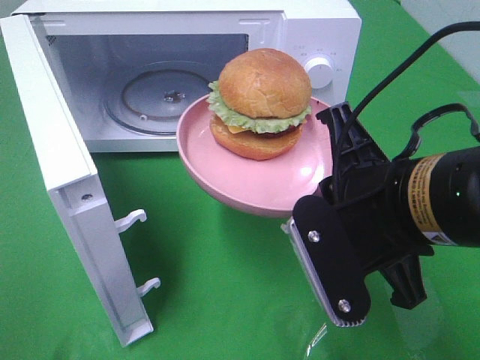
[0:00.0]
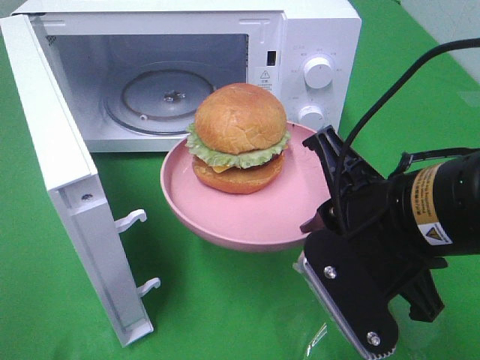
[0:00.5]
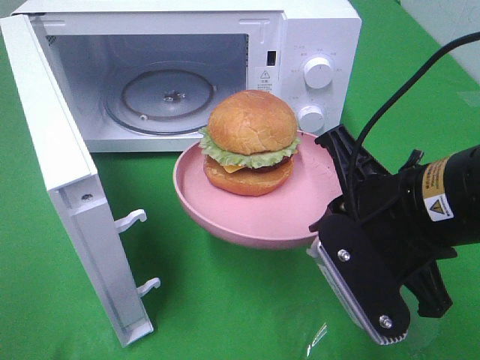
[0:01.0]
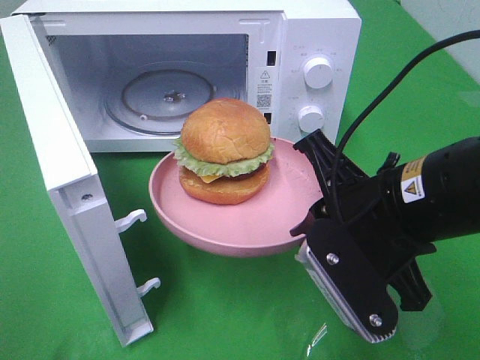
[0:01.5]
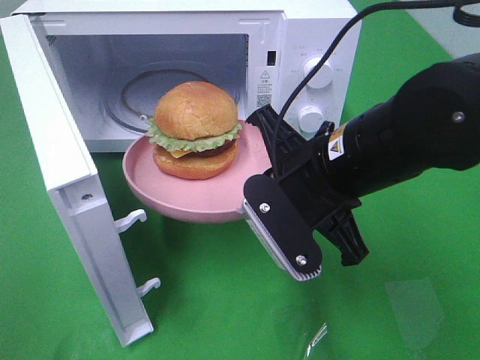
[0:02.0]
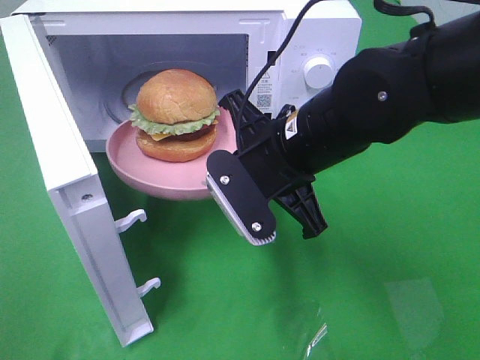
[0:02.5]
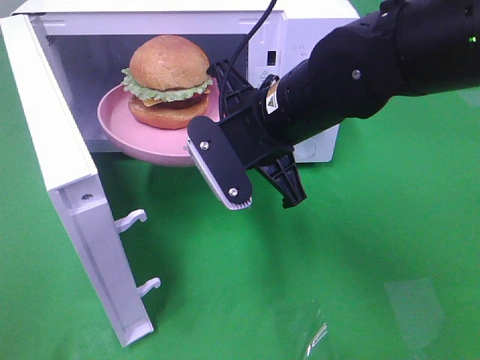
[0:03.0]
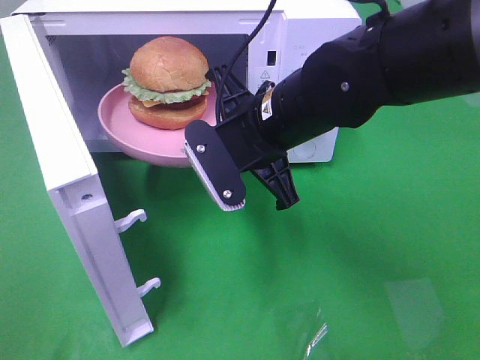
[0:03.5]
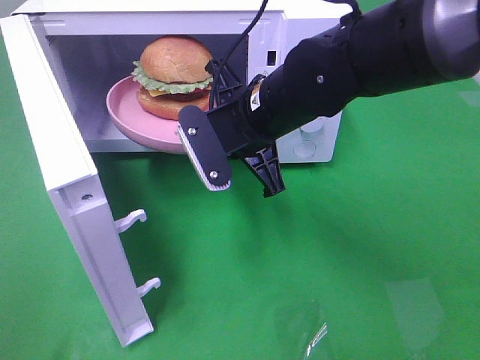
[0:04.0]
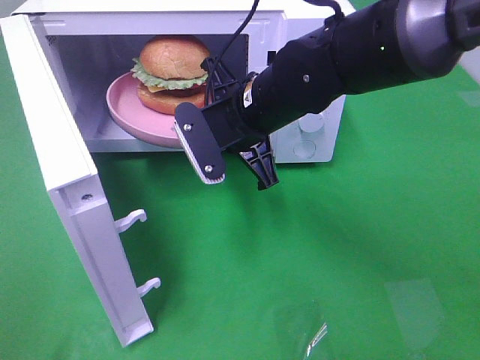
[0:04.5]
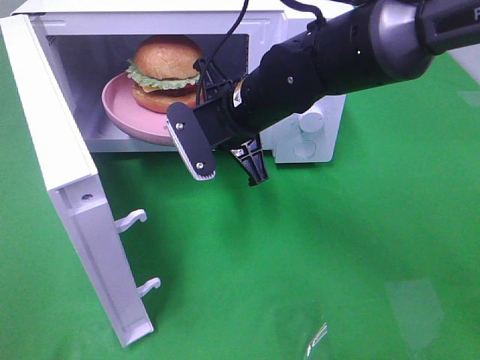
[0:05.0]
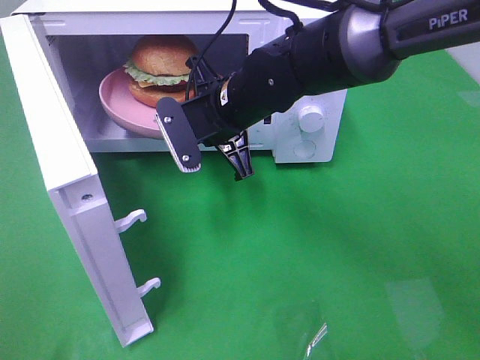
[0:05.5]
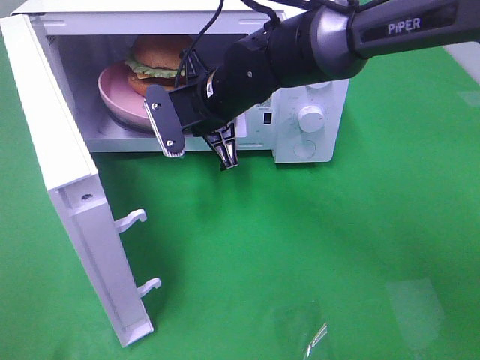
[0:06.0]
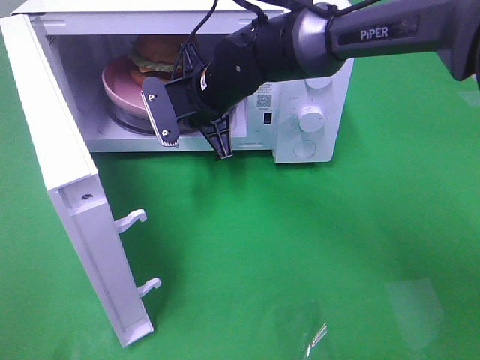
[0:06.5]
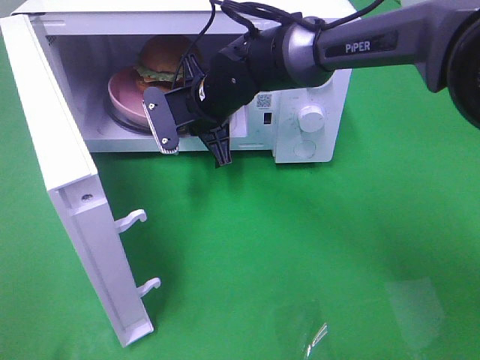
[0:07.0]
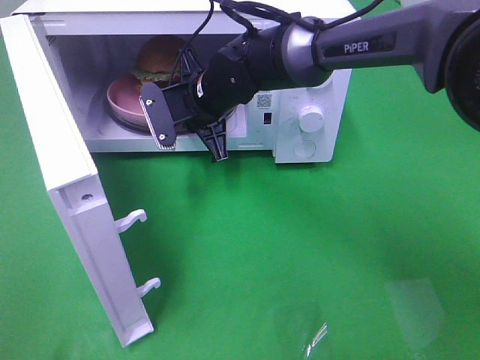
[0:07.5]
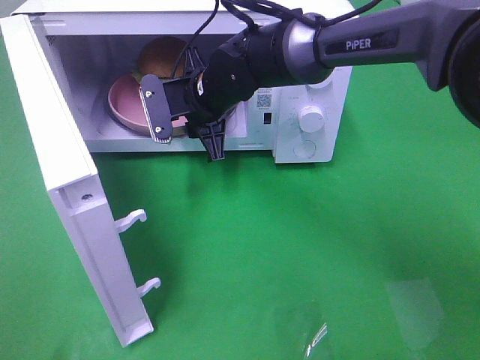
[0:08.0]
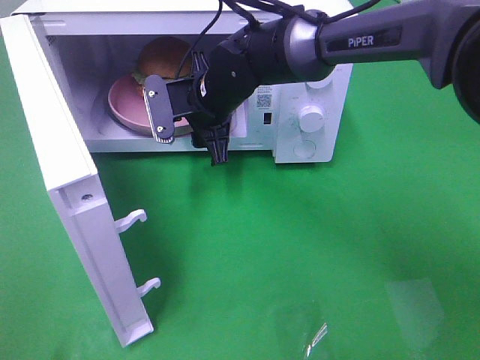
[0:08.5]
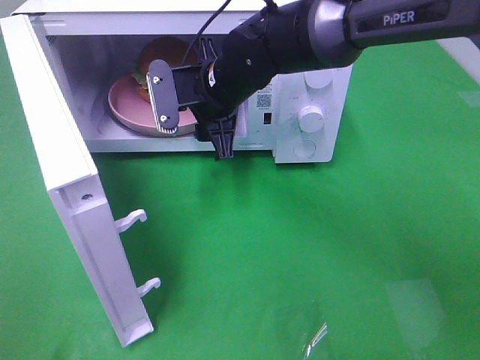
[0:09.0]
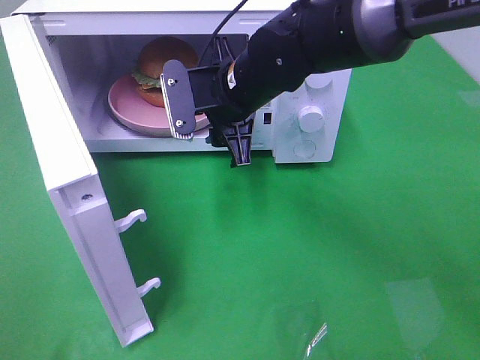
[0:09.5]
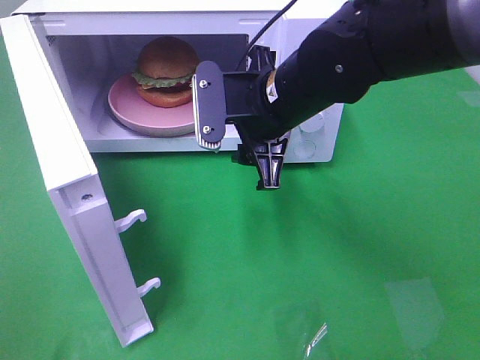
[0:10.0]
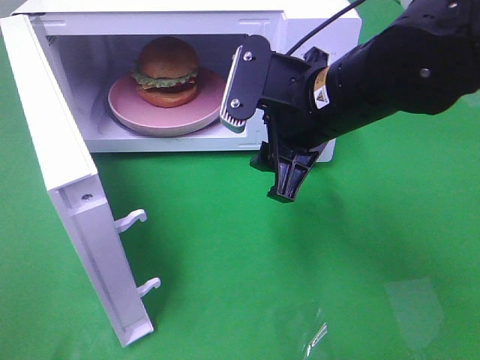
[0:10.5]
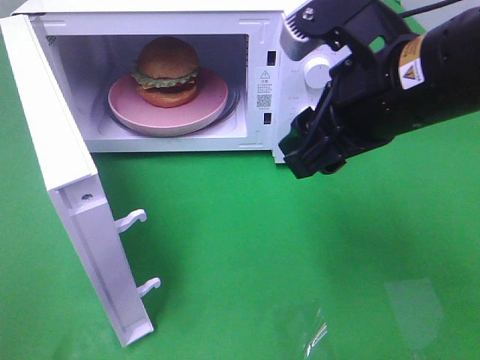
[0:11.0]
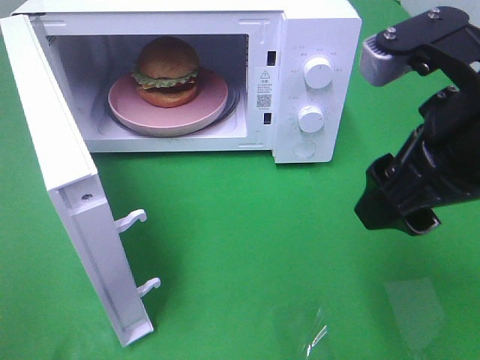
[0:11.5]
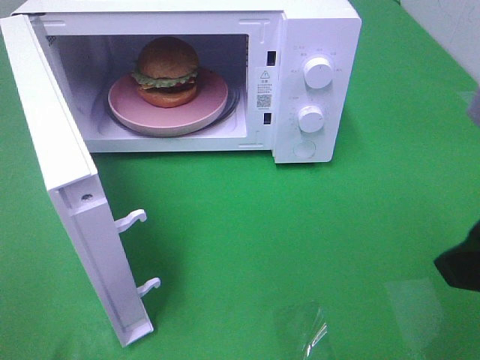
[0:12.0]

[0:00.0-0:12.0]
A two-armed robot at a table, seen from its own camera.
Task of the whole recording: Heat the burger.
Step, 0:00.0 to 0:07.5: Right hand: place the plate in the microwave.
0:00.0 to 0:02.0: The right gripper shifts roughly 5 cm forward.
0:02.0 to 0:04.0: The right gripper shifts about 10 cm forward and to the left.
0:04.0 to 0:06.0: The right gripper is displaced forward by approximately 5 cm.
0:06.0 to 0:08.0: The right gripper opens.
0:08.0 to 0:10.0: The right gripper shifts roughly 15 cm backward, to the right and upward.
0:10.0 to 0:12.0: The right gripper goes approximately 25 cm backward, to the right and upward.

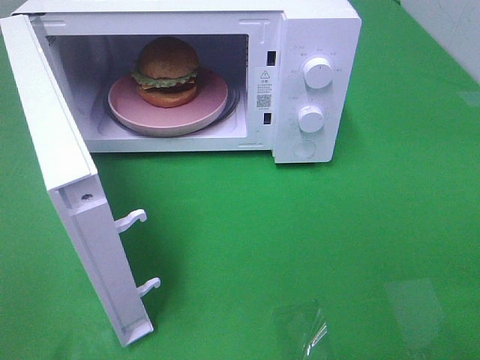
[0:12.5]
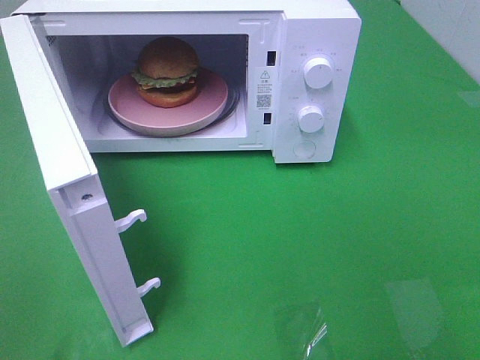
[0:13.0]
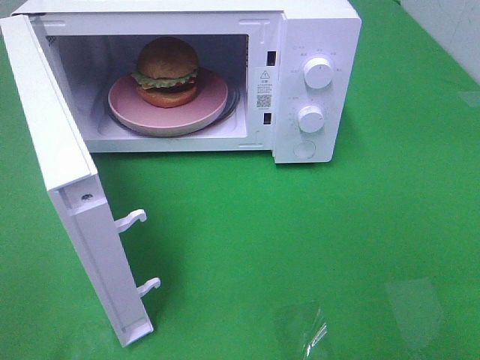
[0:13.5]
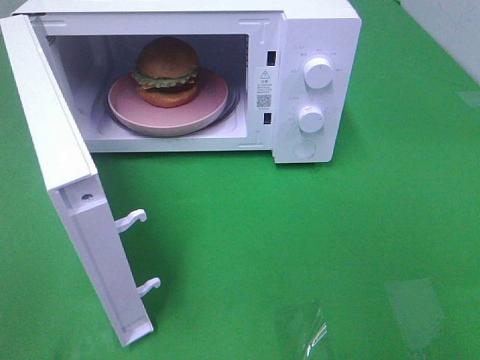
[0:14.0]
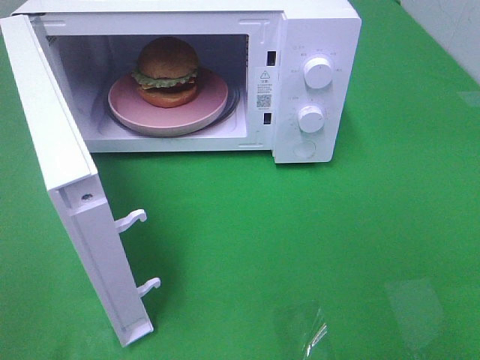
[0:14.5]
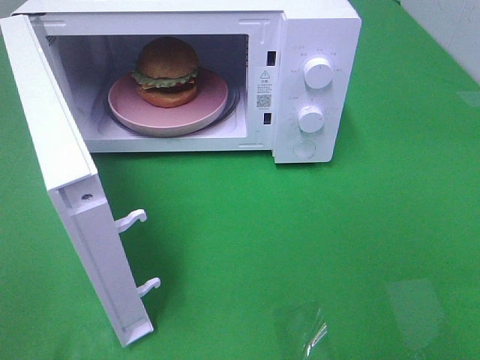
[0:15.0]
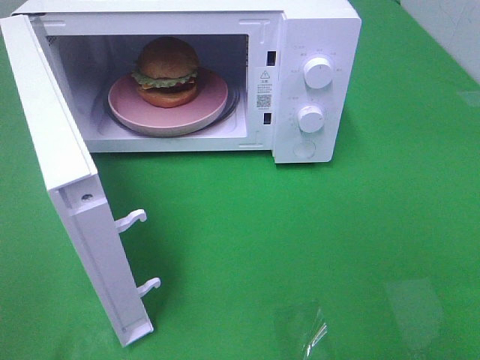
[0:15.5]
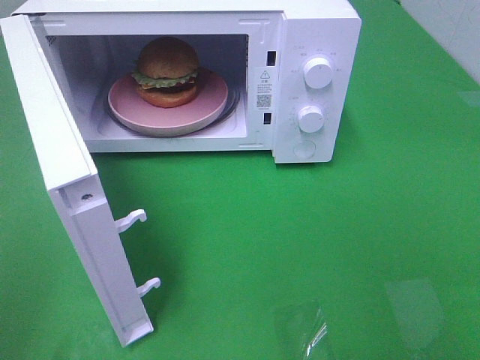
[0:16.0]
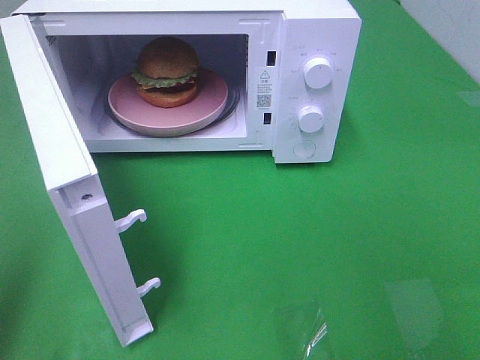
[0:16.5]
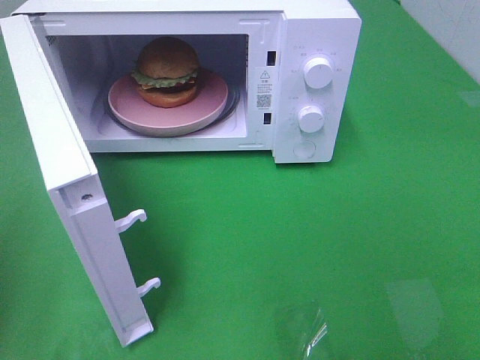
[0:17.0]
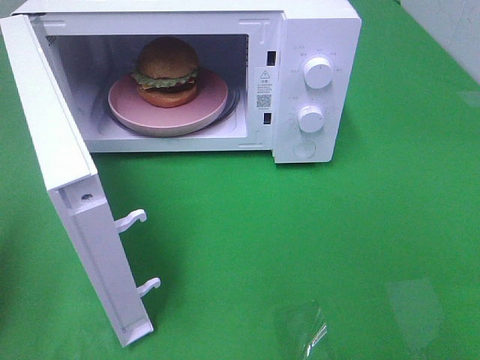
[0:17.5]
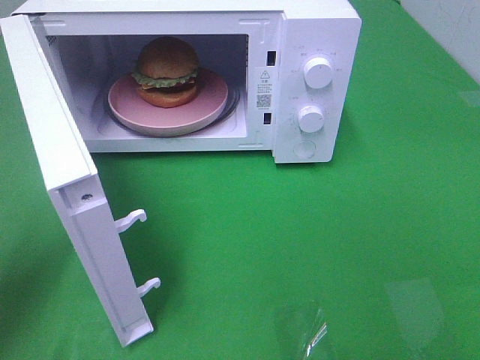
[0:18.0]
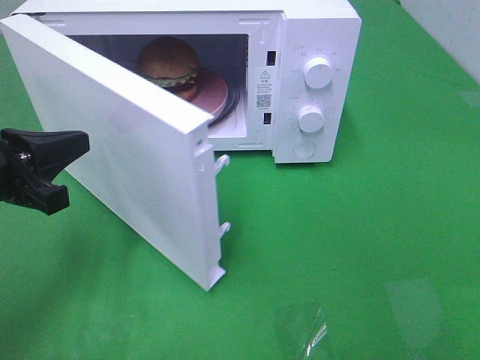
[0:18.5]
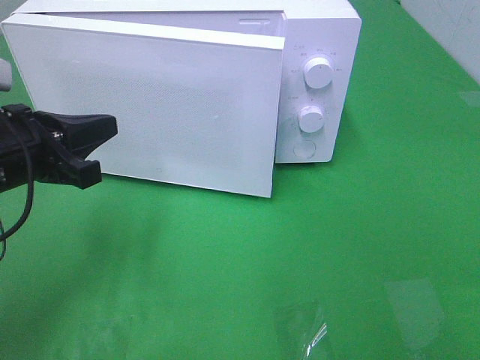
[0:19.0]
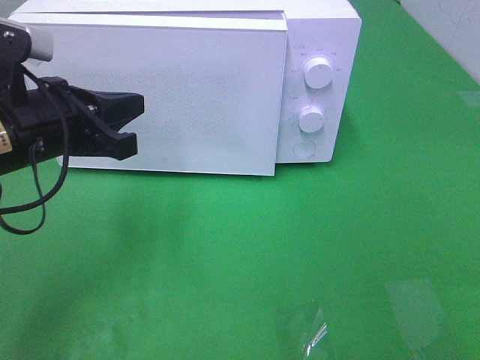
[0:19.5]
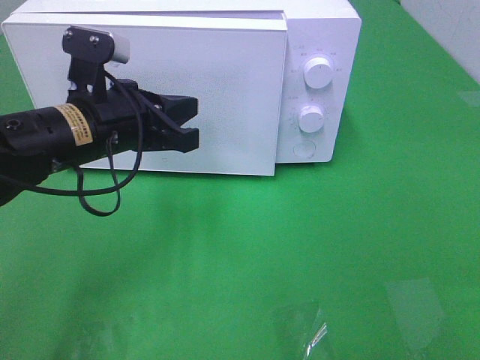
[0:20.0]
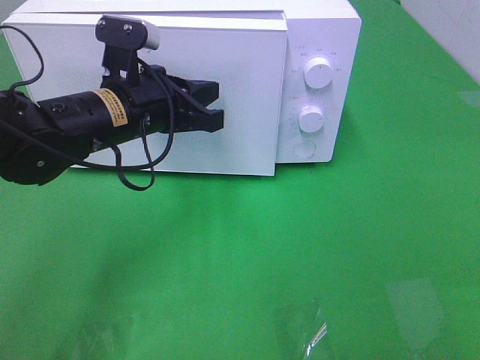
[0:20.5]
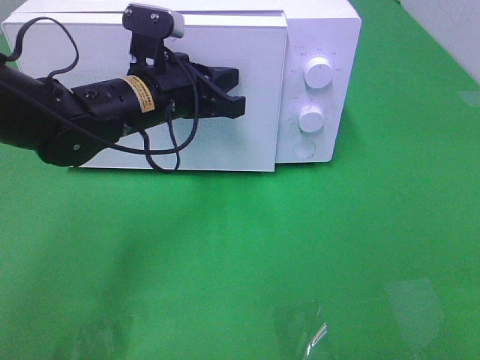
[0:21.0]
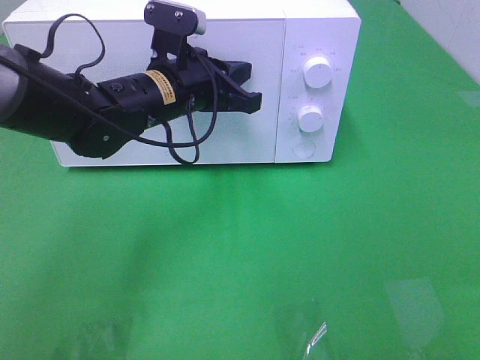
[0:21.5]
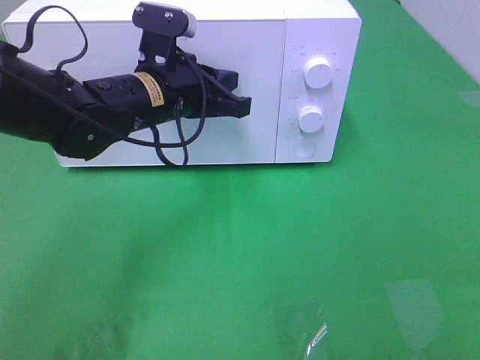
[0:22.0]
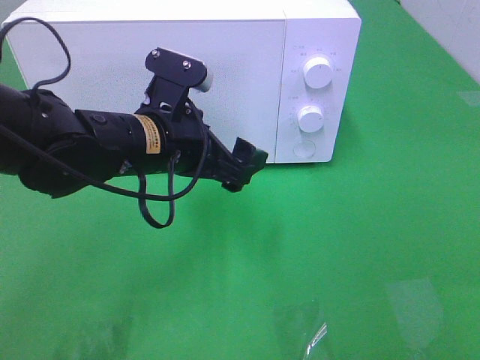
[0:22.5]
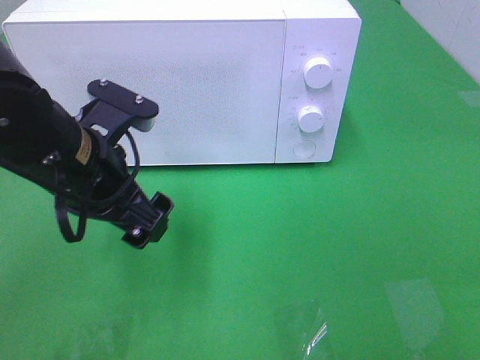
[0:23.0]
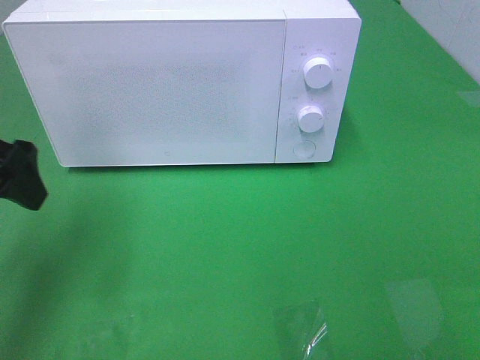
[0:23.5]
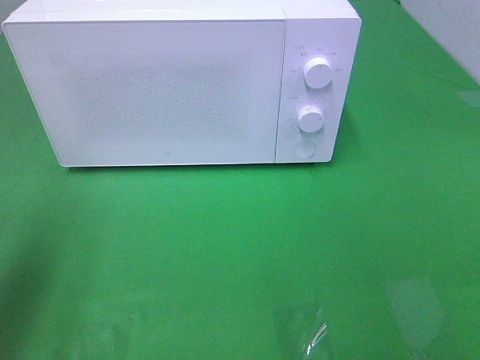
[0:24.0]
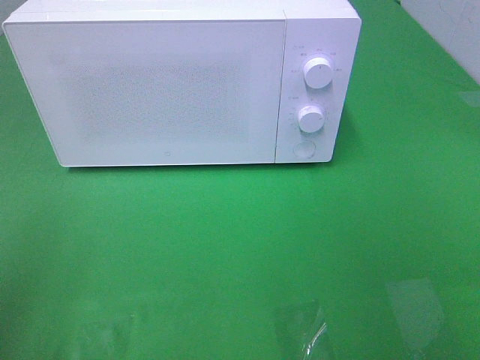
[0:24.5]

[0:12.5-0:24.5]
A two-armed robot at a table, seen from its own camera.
Task of the whole recording: Heat the burger.
Step, 0:12.5 to 0:21.5: Left hand: close the microwave door.
0:16.5 to 0:18.5: The left gripper goes approximately 20 cm downward, forward and to the right.
0:18.5 to 0:20.5: The left gripper shifts about 15 cm to the right and forward.
0:20.5 to 0:22.5: The left gripper opens its fingers.
0:22.5 to 0:24.5: The left gripper shifts about 30 cm to the left, backward and upward.

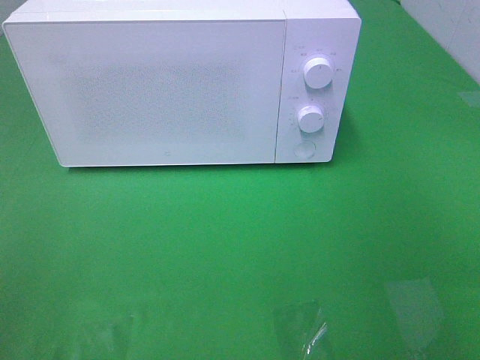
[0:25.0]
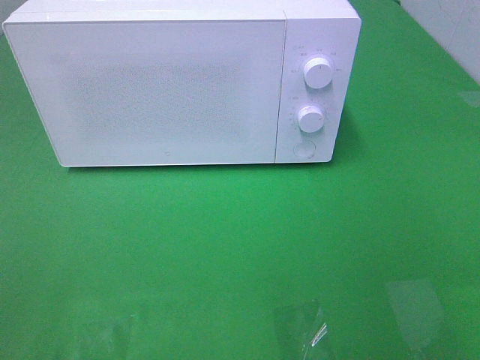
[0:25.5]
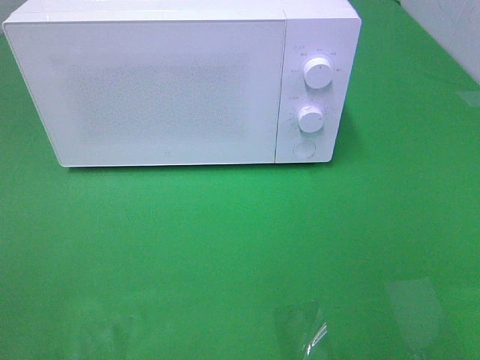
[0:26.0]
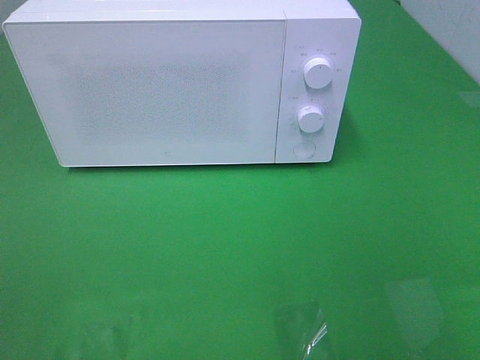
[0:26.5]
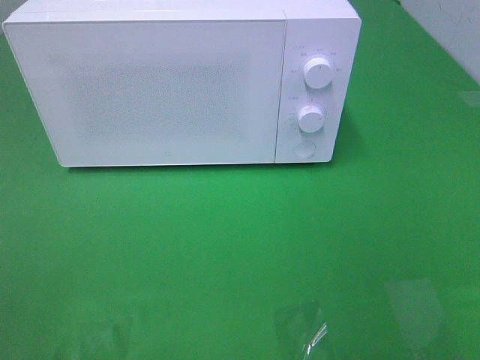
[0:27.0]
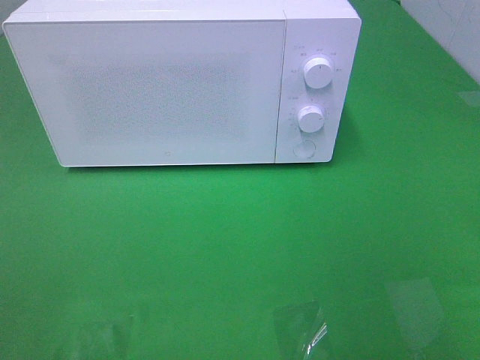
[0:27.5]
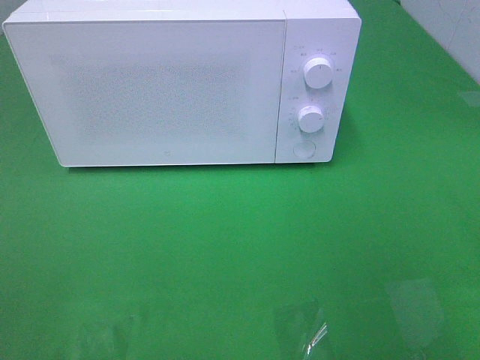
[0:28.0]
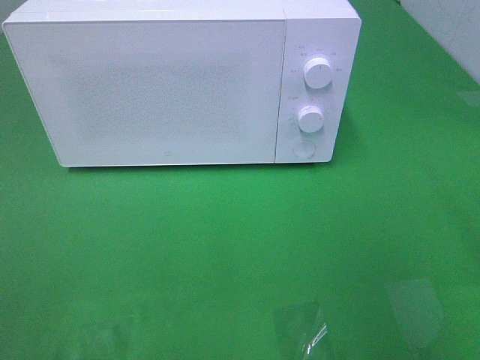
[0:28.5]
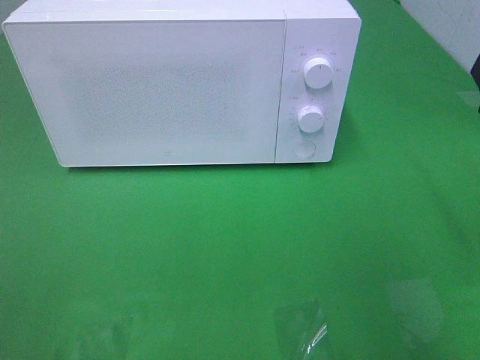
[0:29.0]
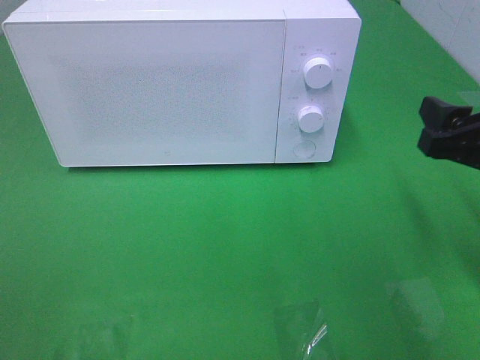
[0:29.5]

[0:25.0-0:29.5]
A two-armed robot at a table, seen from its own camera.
Task of the whole recording: Heat the burger.
0:27.0 to 0:29.5: The right gripper is displaced forward and downward by about 25 cm.
